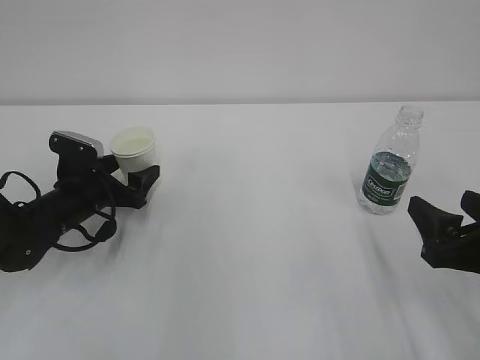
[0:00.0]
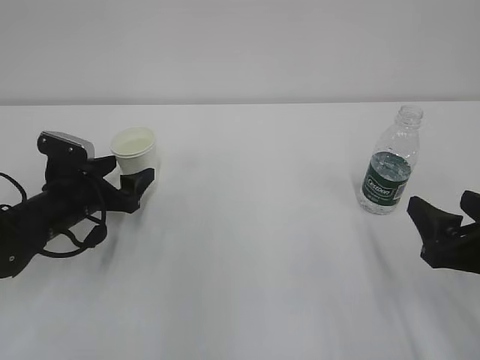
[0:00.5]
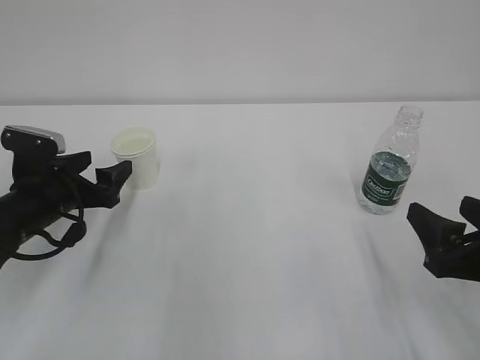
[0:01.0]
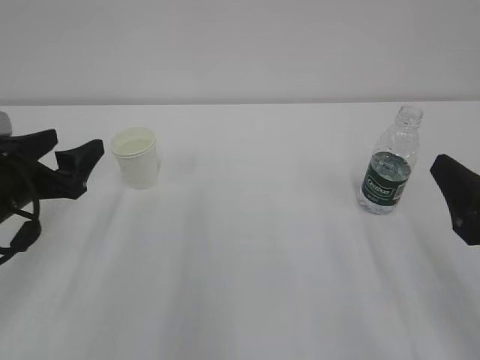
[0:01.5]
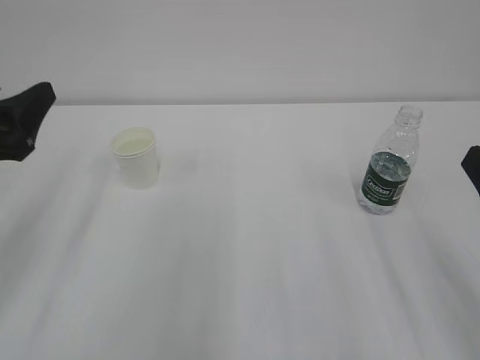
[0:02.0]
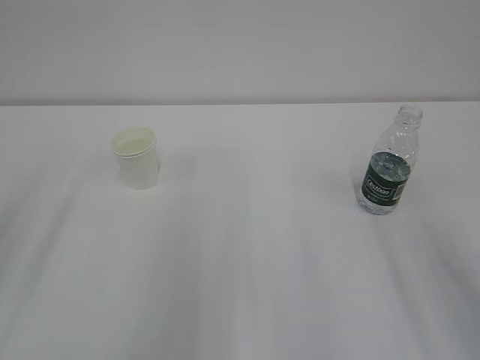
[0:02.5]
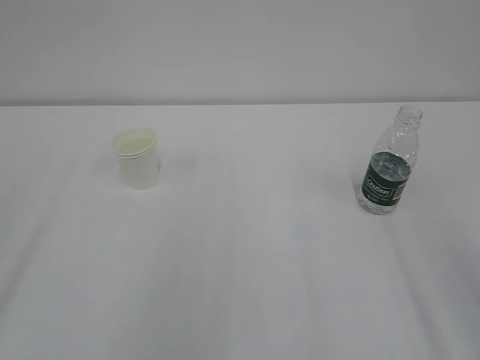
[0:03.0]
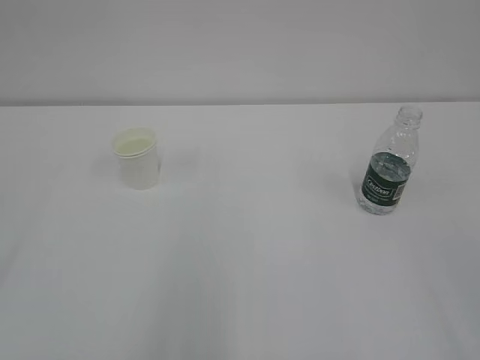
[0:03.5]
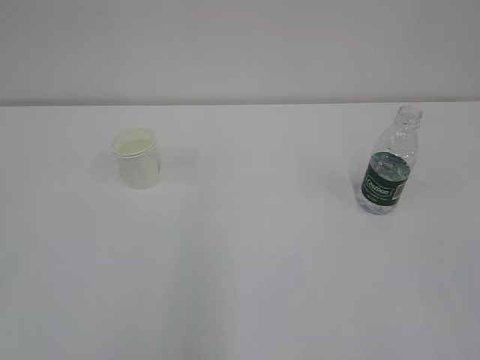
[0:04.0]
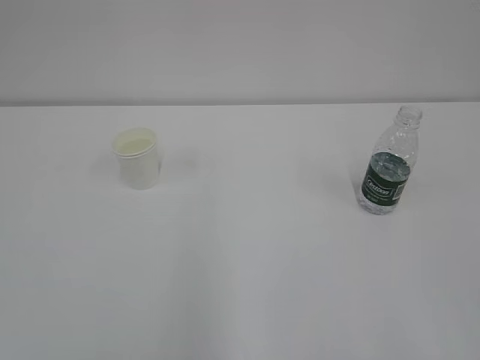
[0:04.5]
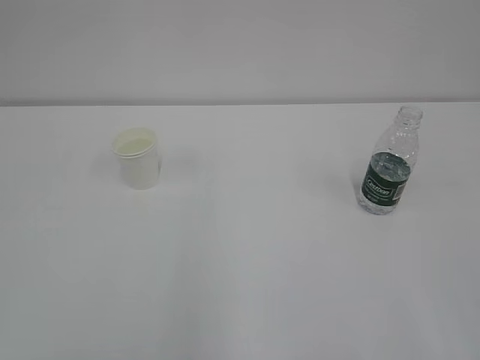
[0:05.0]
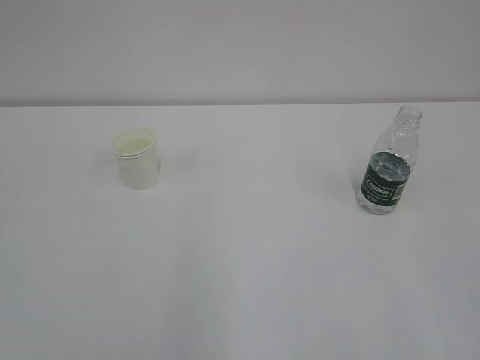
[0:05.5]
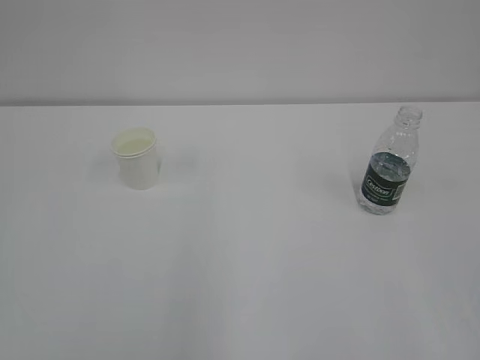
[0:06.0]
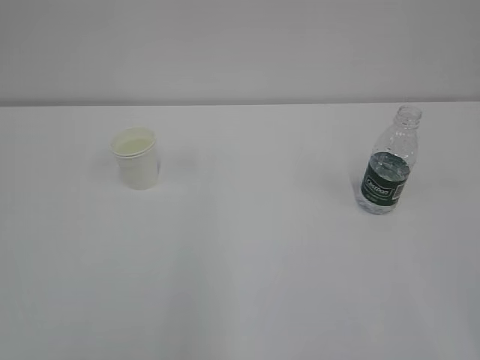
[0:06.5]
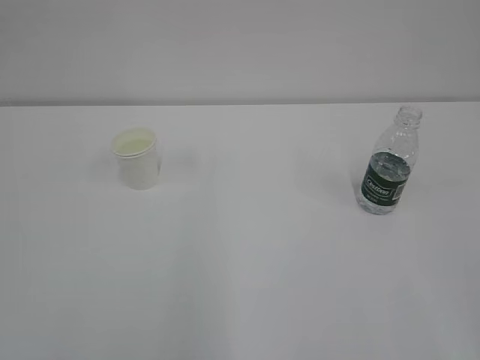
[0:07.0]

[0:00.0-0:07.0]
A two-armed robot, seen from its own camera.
0:00.0 to 0:02.0: The right gripper moves upward, some 10 cm. Meanwhile the left gripper is displaced upward and backward by about 20 cm.
0:02.0 to 0:03.5: The left gripper is displaced backward and upward by about 25 cm.
